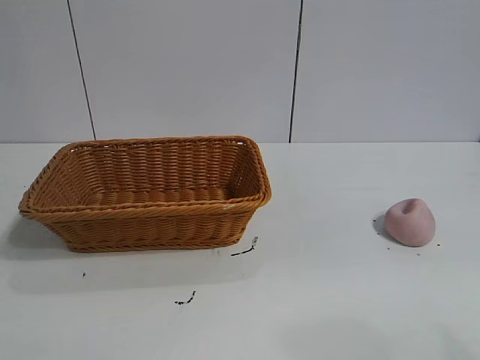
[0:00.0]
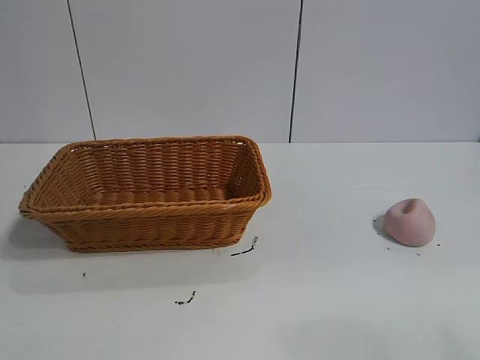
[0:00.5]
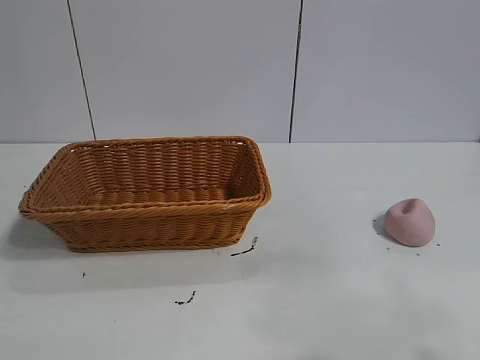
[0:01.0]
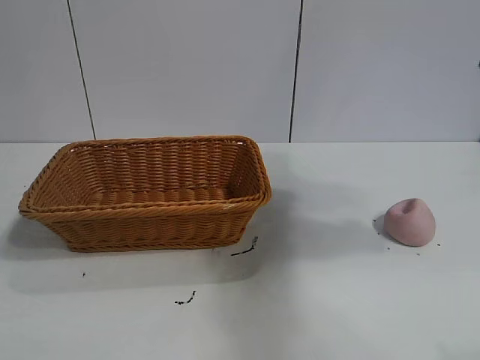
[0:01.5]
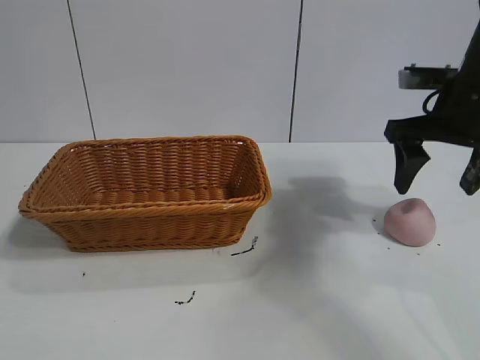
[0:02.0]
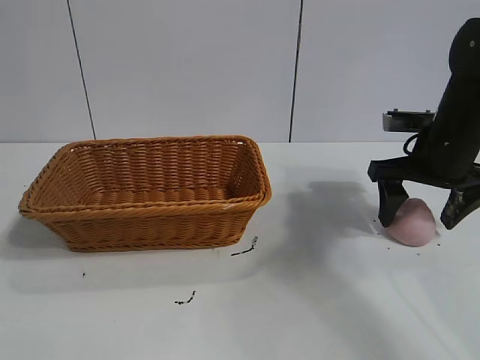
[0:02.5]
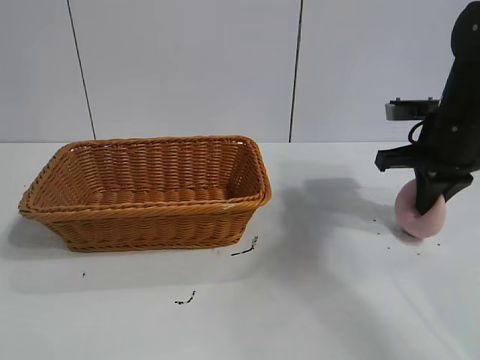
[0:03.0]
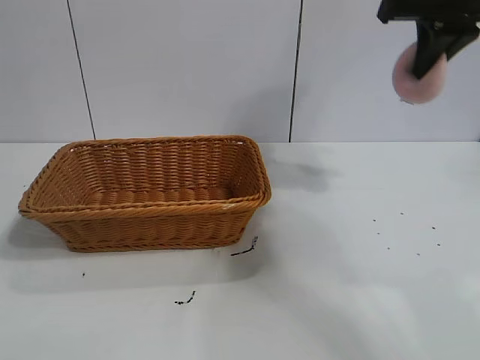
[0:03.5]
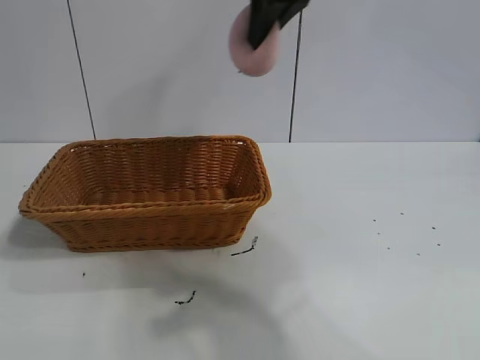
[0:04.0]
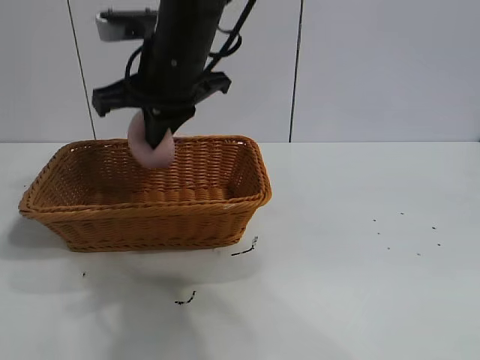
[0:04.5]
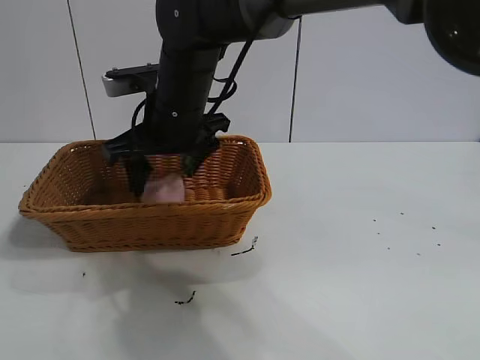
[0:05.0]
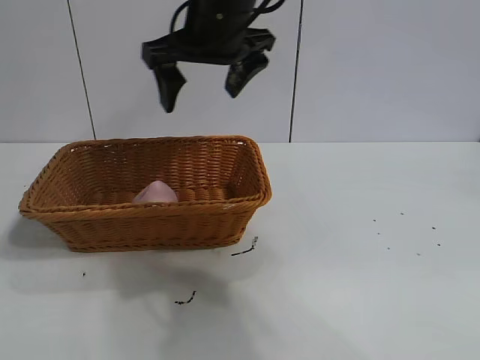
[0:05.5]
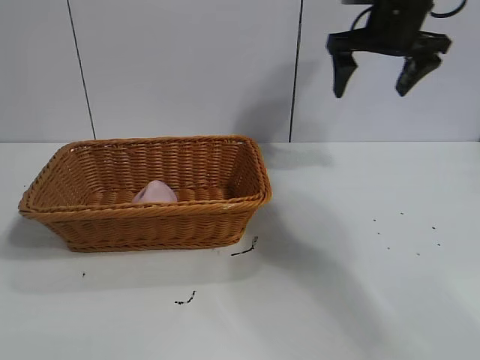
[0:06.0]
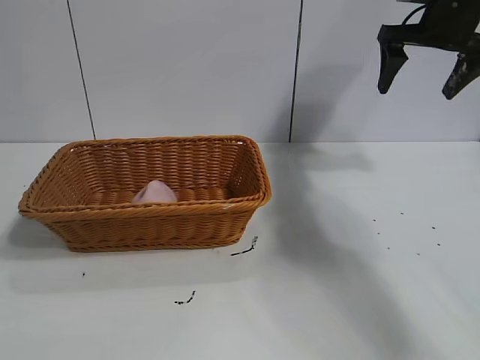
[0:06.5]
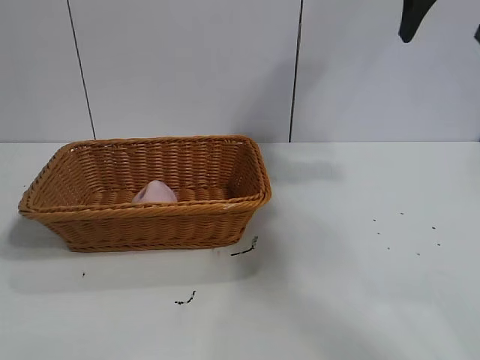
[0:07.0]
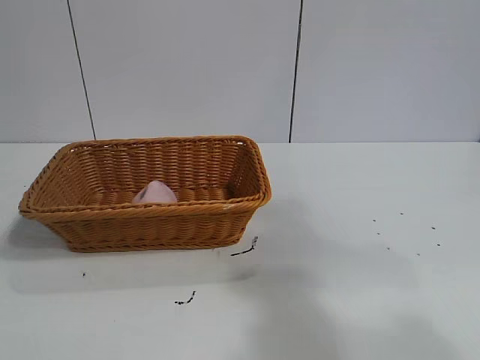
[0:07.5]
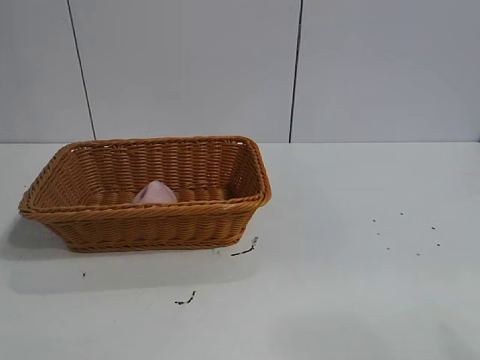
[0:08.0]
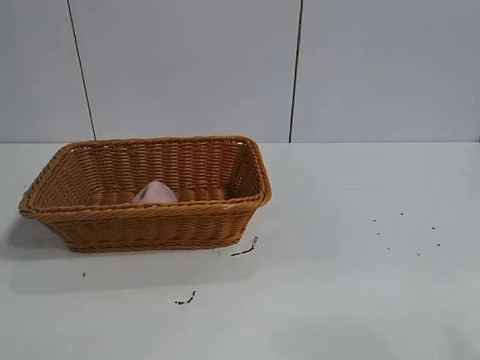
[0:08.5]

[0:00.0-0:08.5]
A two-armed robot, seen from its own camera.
Task of the whole recording: pick up the peach and put it into the basket.
Step, 0:01.0 to 0:02.5: Grasp the peach with right gripper.
Step, 0:03.0 to 0:05.0: Place the peach in the basket with right gripper.
